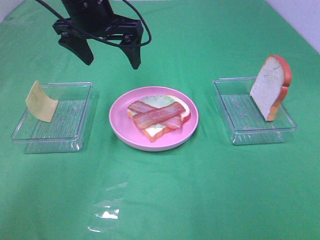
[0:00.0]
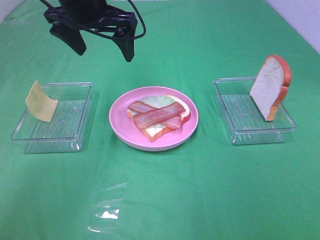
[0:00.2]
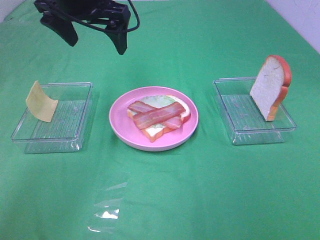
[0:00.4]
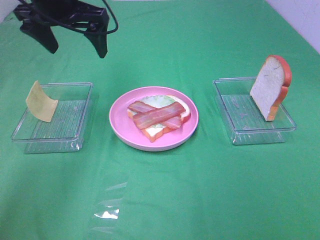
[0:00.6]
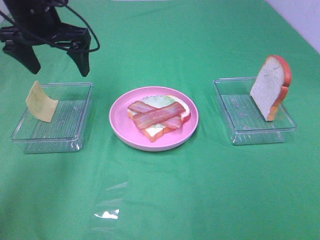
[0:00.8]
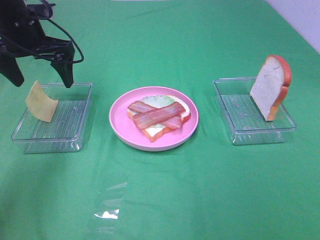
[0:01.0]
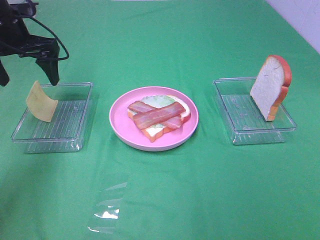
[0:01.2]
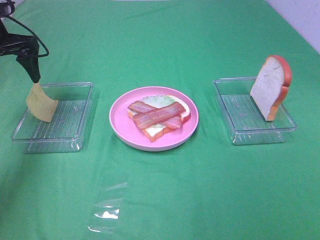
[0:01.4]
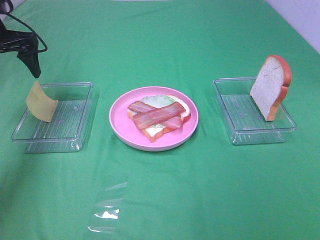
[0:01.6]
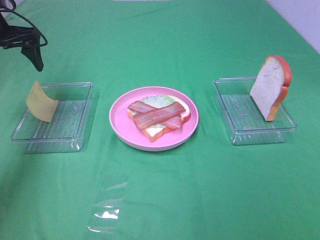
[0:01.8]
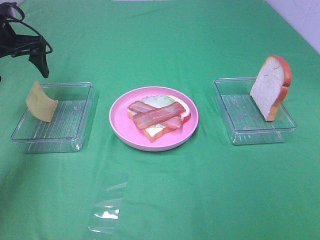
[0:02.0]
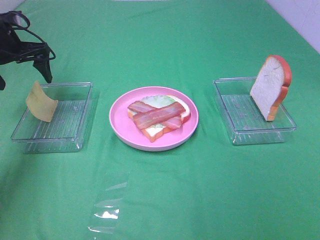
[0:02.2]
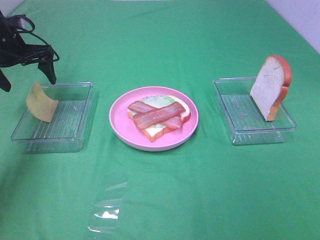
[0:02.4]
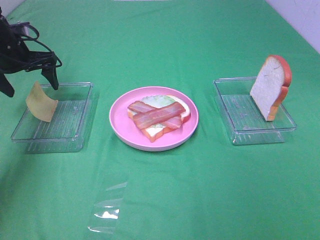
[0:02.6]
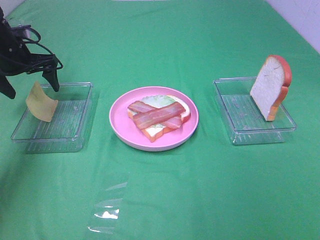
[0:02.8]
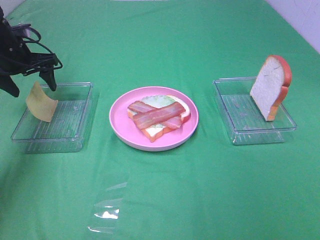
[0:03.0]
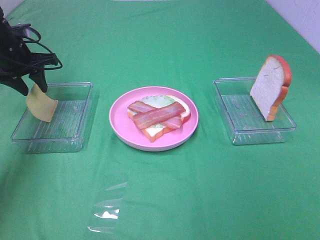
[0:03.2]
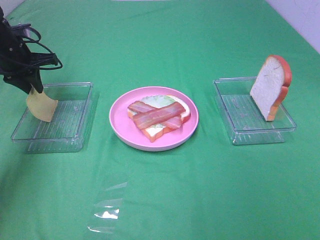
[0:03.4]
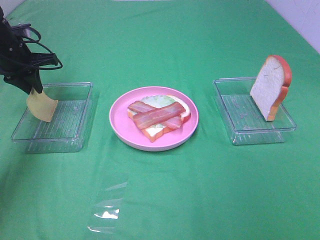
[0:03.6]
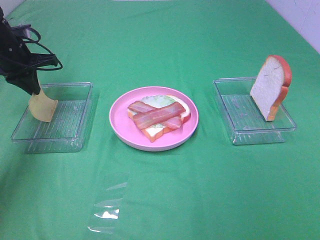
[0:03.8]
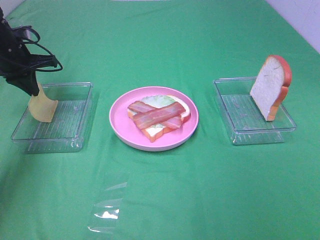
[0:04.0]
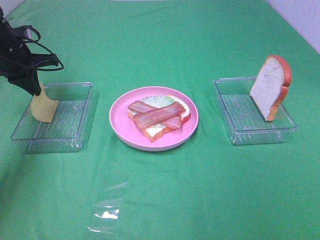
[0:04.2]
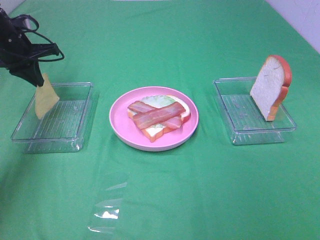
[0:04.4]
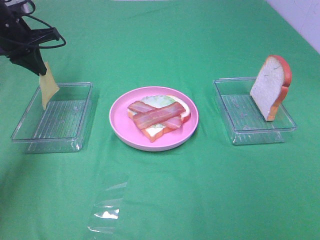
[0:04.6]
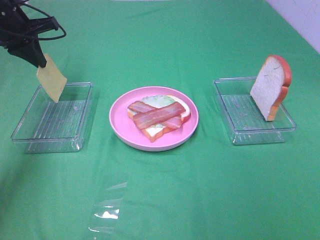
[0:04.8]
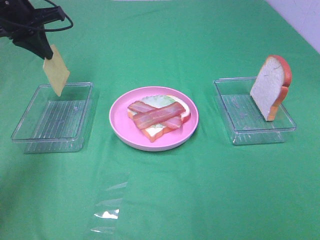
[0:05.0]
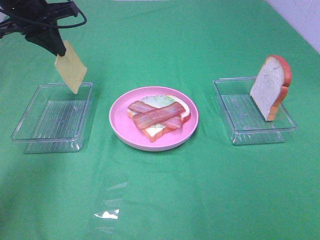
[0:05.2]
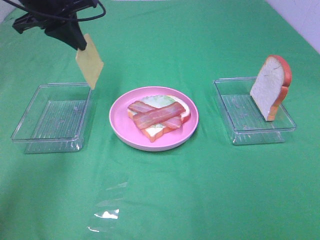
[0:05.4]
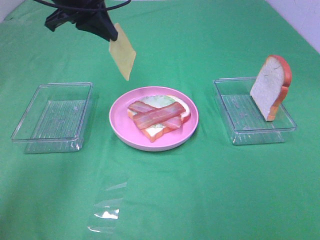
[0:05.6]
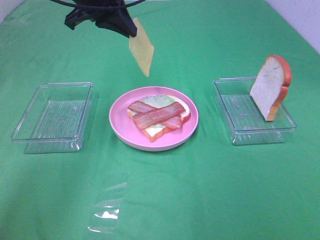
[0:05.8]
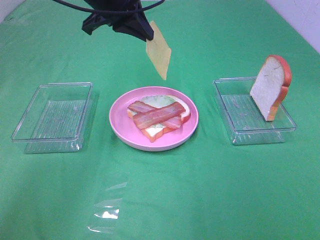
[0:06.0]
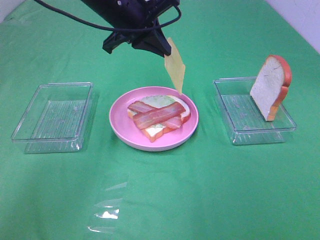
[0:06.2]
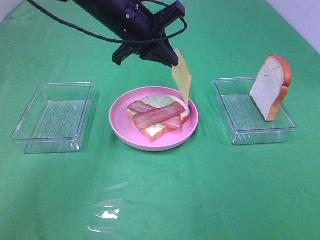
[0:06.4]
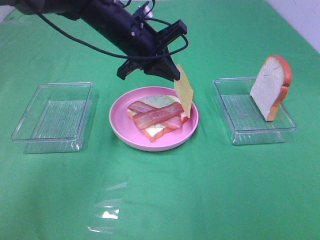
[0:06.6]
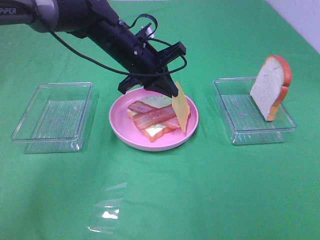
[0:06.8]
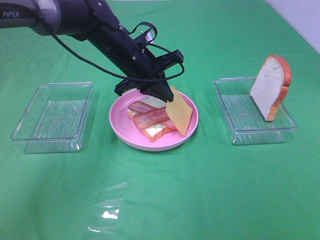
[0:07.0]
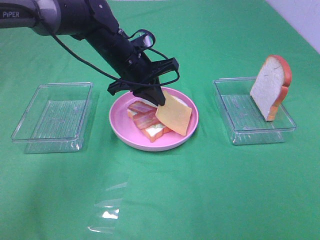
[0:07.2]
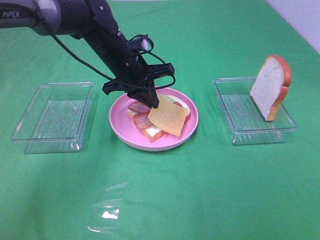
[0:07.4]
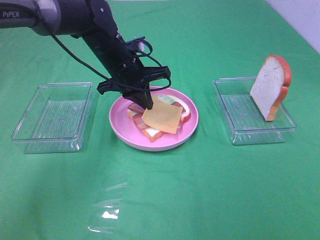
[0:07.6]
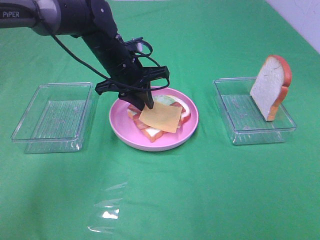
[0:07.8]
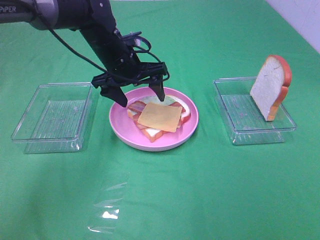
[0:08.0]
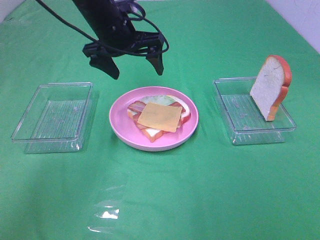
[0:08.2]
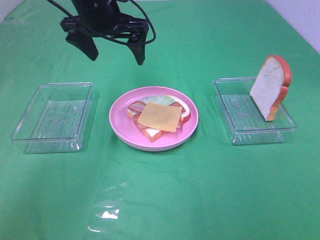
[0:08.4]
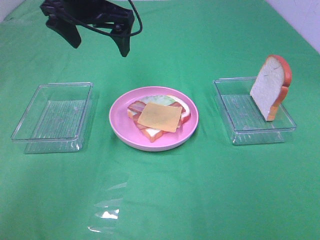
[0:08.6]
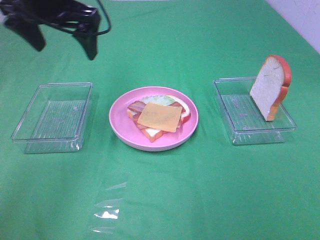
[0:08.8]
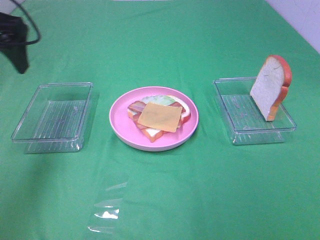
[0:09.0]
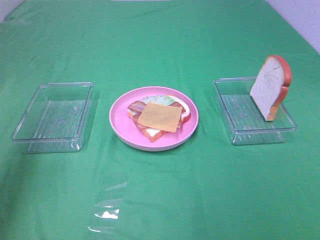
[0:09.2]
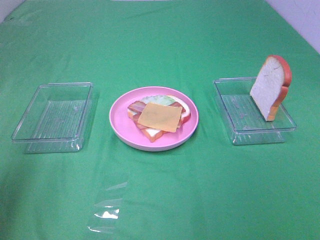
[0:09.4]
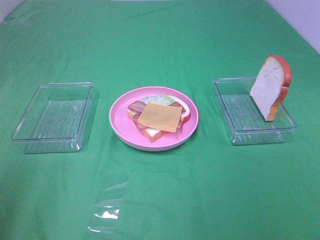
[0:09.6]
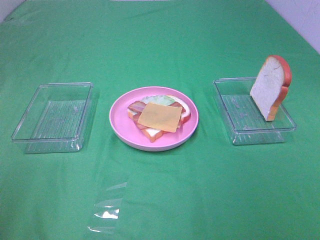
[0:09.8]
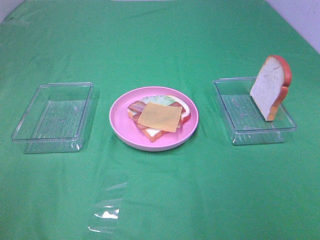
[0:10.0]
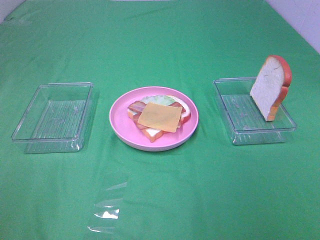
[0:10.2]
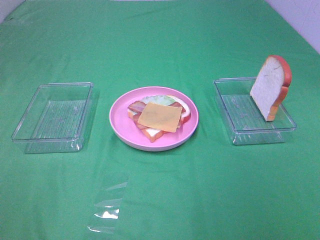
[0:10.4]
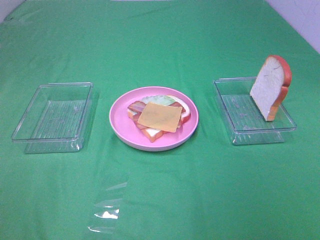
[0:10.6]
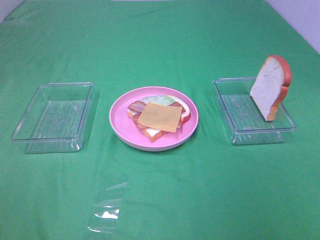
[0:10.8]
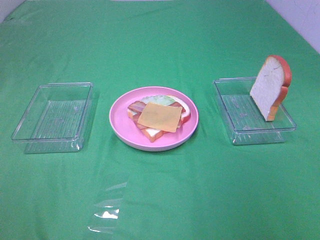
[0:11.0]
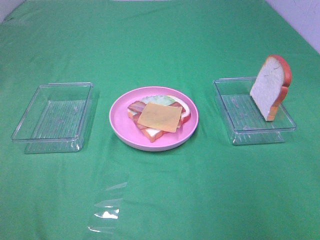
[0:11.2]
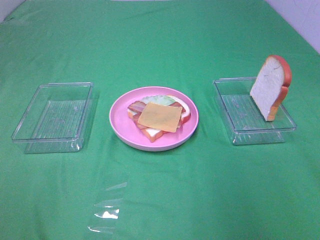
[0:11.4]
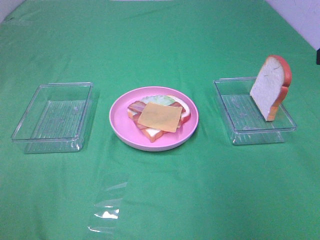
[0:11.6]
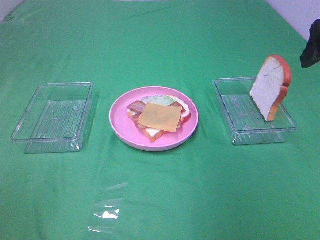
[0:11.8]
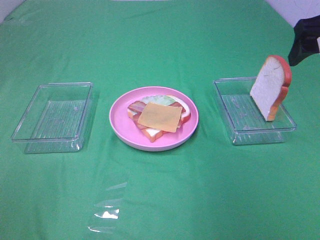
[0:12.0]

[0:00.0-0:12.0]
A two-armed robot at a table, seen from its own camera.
Task of the whole recording: Make sandwiches.
Step, 0:00.0 to 0:03.8: Left hand:grab the cheese slice.
Step, 0:04.0 to 0:07.8: Left hand:place the cheese slice on top of the bacon.
0:00.0 to 0:01.6: The left gripper heads to the left, covering about 20 cm.
0:01.6 to 0:03.0: The left gripper is displaced downward by roughly 5 cm.
0:03.0 to 0:04.4: The left gripper closes its fingers.
0:04.4 to 0:06.0: The left gripper shifts about 25 cm to the right and upward.
0:06.0 to 0:07.6: The left gripper travels downward by some 15 cm.
0:07.6 to 0:09.0: The left gripper heads to the left, upward and backward, covering approximately 25 cm, and opens.
0:09.0 to 0:10.4: The left gripper travels backward by approximately 35 cm.
0:10.4 to 0:12.0: The right gripper heads forward, covering approximately 30 cm.

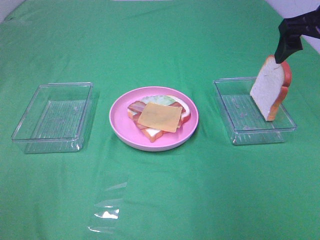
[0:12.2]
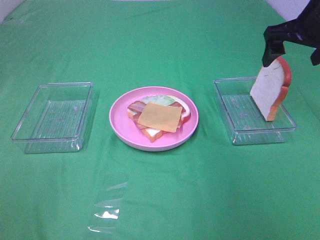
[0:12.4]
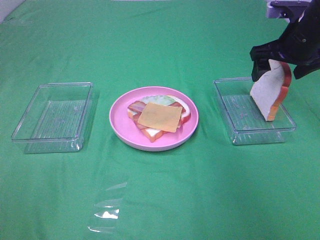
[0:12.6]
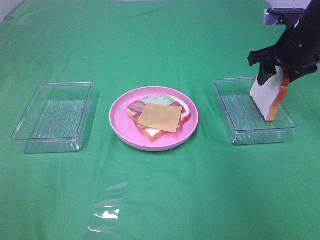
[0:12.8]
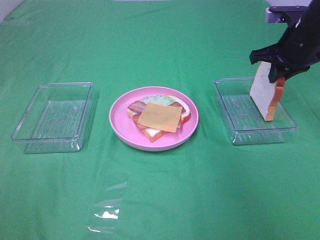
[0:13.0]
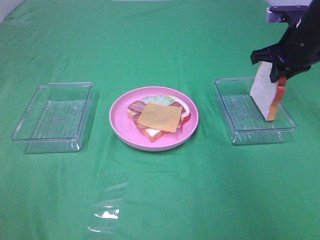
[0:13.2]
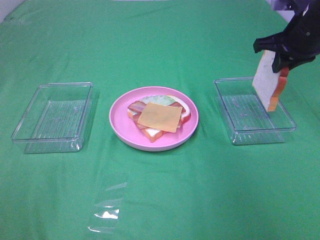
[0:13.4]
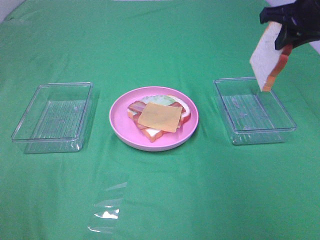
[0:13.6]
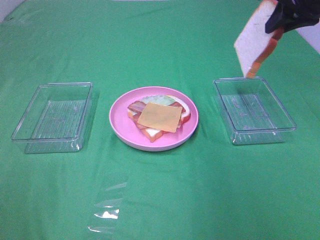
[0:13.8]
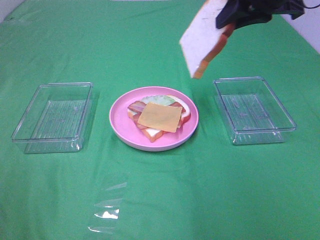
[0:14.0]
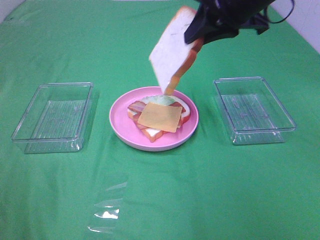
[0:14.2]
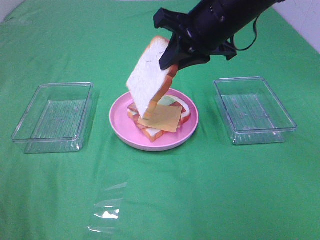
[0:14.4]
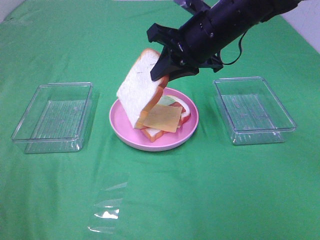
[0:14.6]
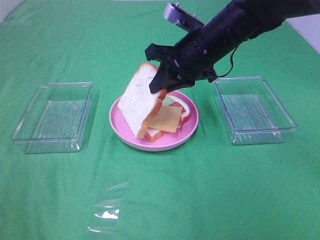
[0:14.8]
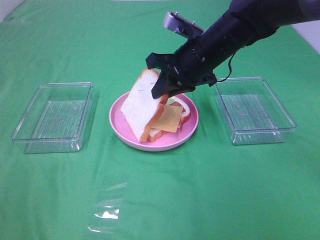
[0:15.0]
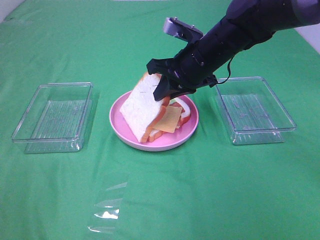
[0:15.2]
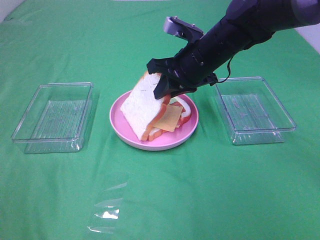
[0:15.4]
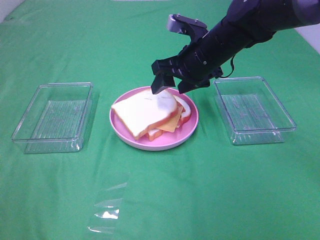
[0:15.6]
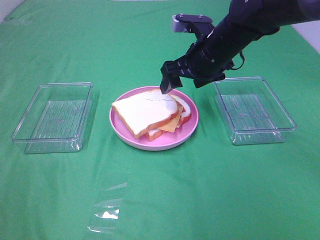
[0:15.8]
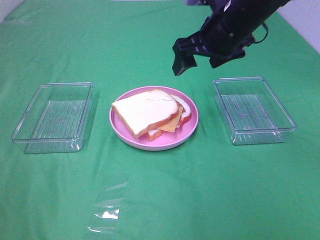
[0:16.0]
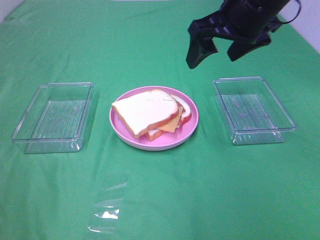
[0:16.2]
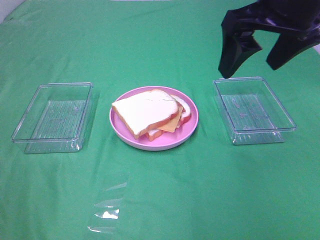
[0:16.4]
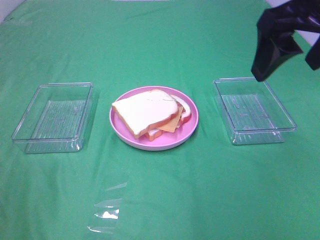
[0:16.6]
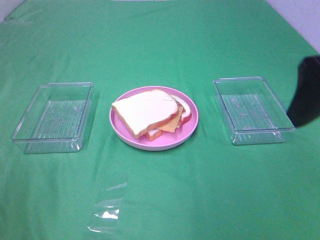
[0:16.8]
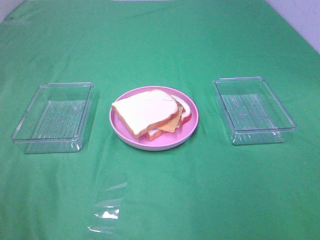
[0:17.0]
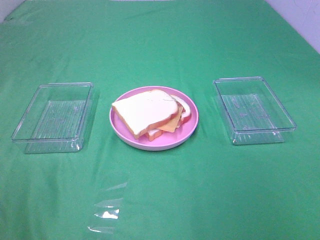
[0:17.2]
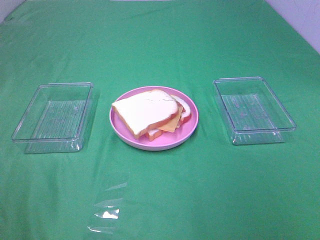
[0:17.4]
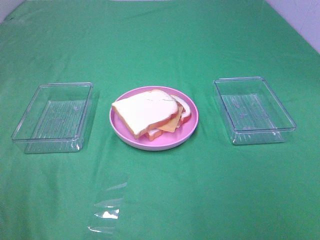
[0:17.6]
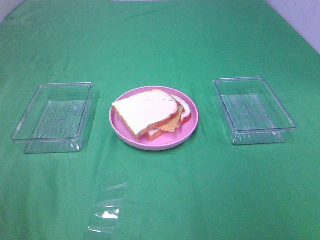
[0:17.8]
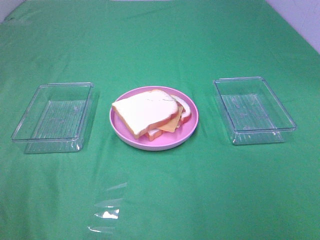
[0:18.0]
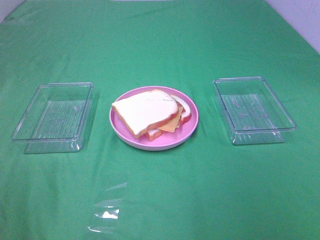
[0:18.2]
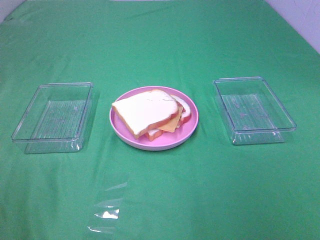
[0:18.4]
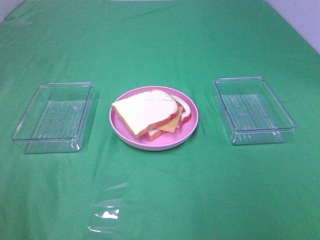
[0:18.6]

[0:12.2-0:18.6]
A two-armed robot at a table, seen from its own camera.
Task of the whole recording: Make sandwiches.
Step, 0:13.2 to 0:15.6: Right hand:place the bread slice on the cheese slice.
0:12.2 to 0:13.8: The right gripper moves about 10 cm downward and comes back, and closes its fingers.
0:13.8 to 0:15.4: The right gripper heads to the left and downward, covering some 20 cm.
0:15.4 to 0:17.0: The right gripper moves backward, to the right and upward, roughly 35 cm, and opens up.

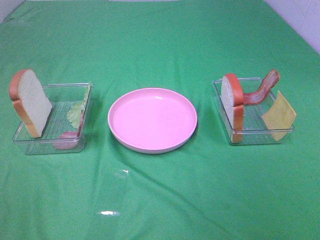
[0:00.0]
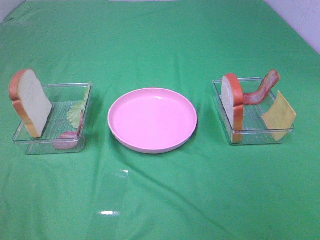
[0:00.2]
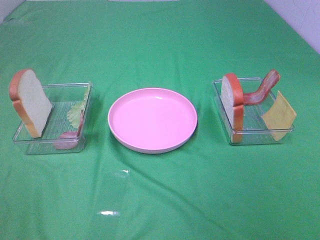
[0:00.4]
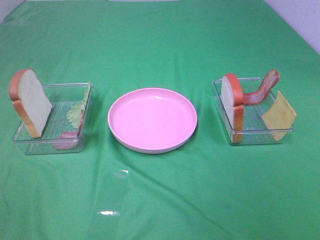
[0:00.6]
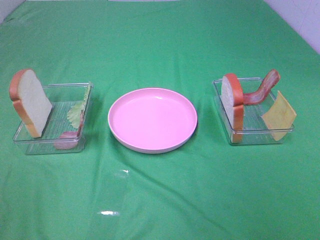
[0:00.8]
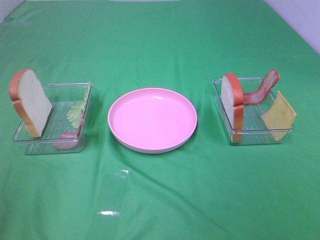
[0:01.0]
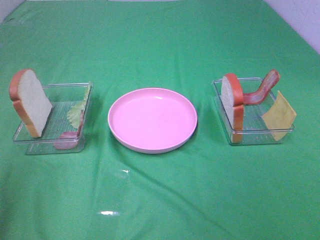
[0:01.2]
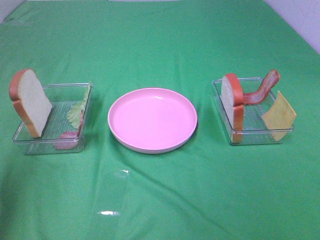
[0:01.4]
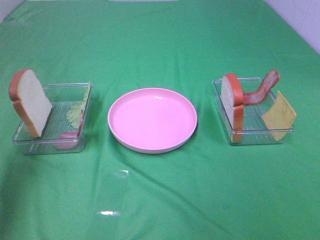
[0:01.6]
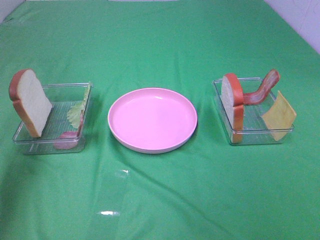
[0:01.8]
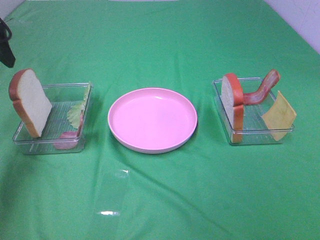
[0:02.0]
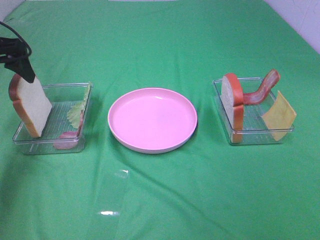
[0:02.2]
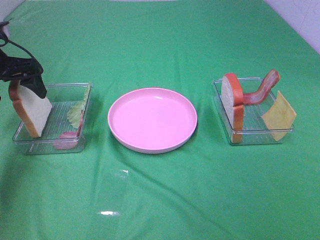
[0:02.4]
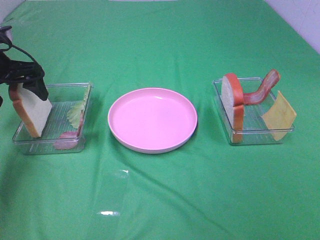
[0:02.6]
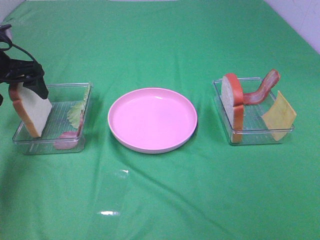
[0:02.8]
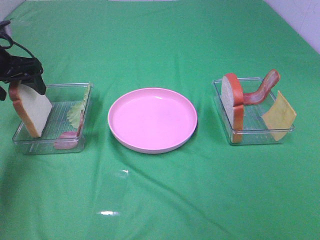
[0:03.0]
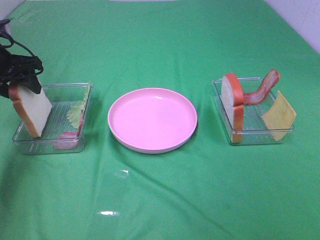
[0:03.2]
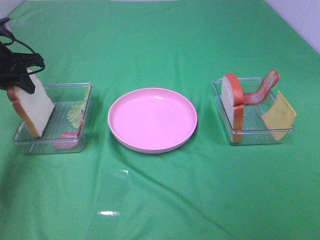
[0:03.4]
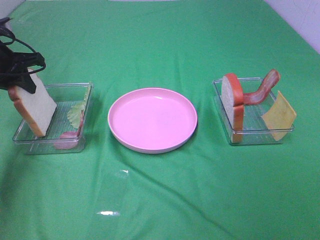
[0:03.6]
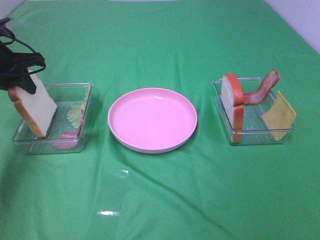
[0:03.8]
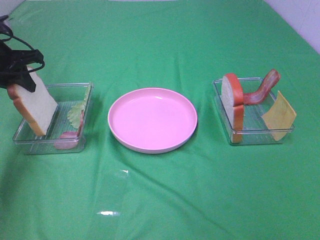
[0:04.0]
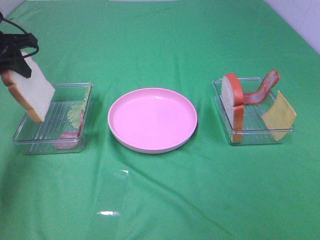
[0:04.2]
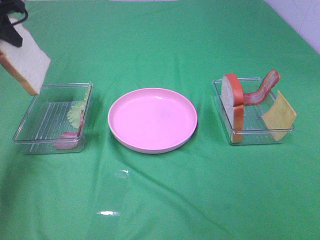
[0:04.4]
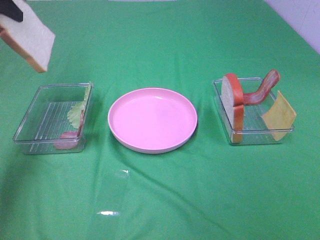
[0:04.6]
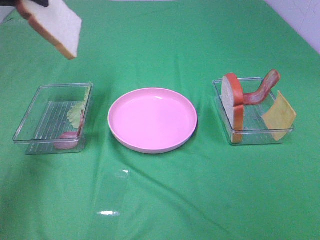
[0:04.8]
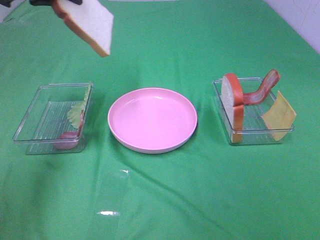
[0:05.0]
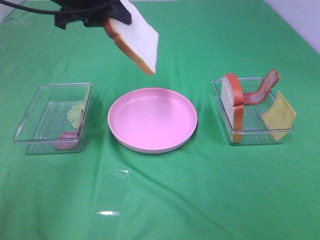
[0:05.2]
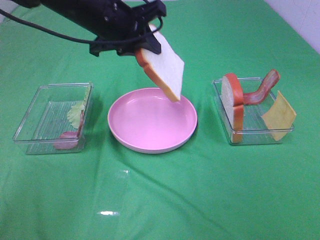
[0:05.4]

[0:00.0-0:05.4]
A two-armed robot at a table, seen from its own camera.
Task of the whole recording: Make sandwiches.
Step, 0:00.0 to 0:03.4: Left hand:grab the bread slice.
0:00.0 to 0:01.4: The left gripper shifts some 20 cm forward and upward.
0:01.4 to 0:02.8: The left gripper is displaced forward and downward by roughly 30 cm.
0:02.8 to 0:04.0: The left gripper closes.
0:04.0 to 0:05.4: The left gripper moves to the right, roughly 20 cm.
